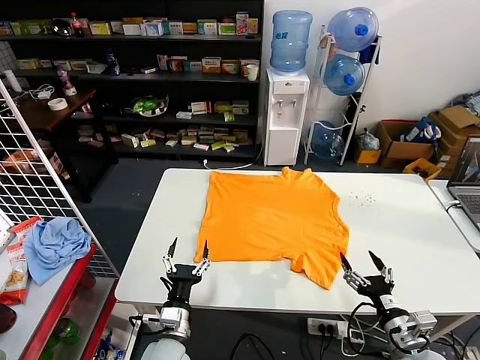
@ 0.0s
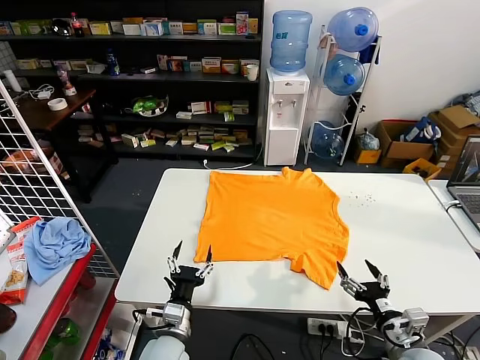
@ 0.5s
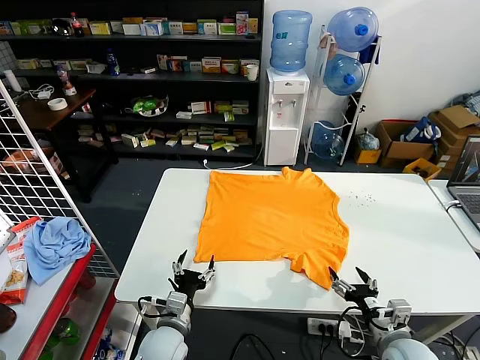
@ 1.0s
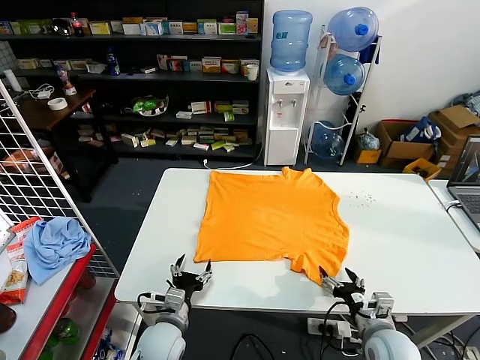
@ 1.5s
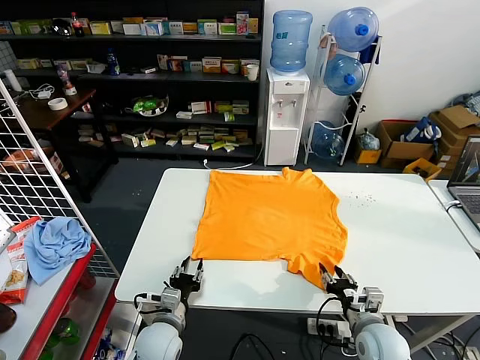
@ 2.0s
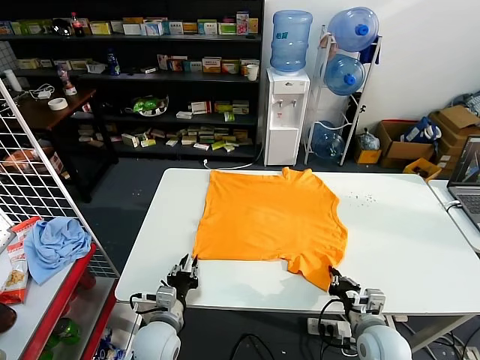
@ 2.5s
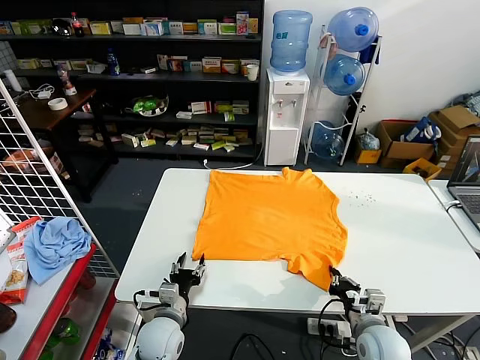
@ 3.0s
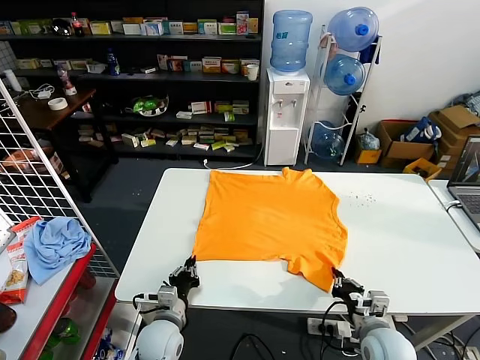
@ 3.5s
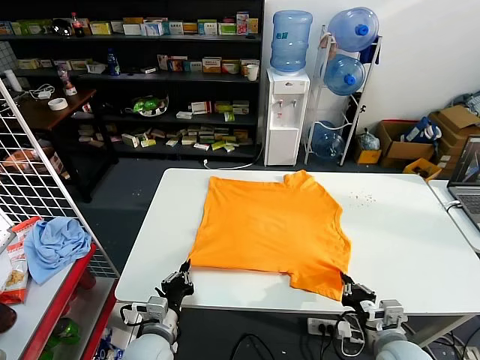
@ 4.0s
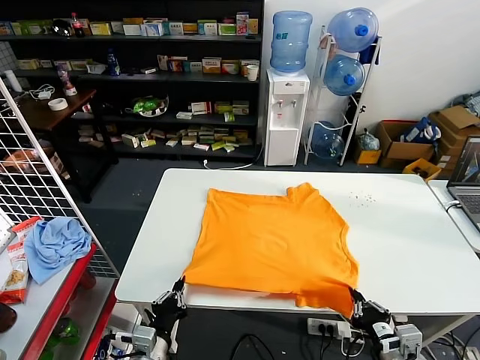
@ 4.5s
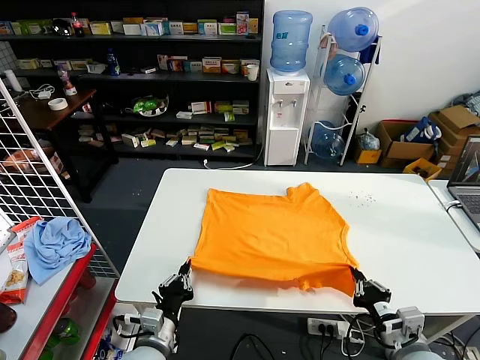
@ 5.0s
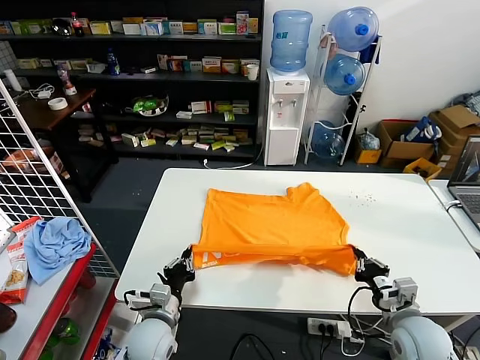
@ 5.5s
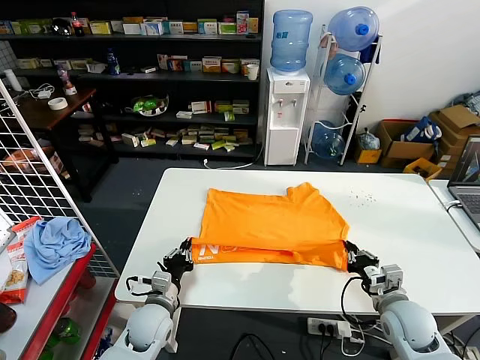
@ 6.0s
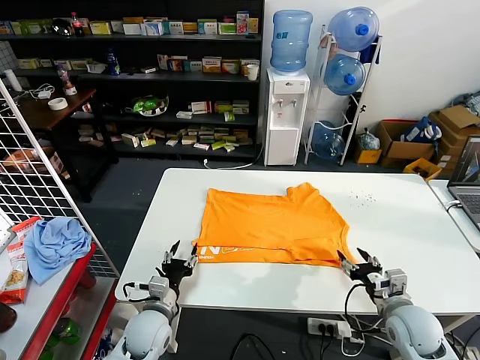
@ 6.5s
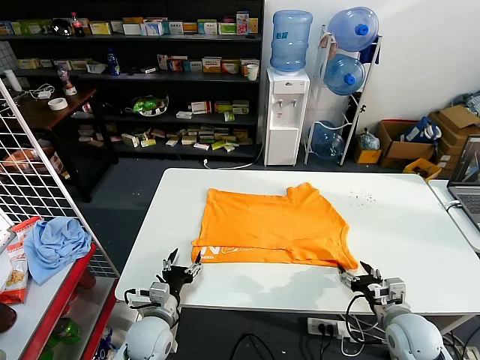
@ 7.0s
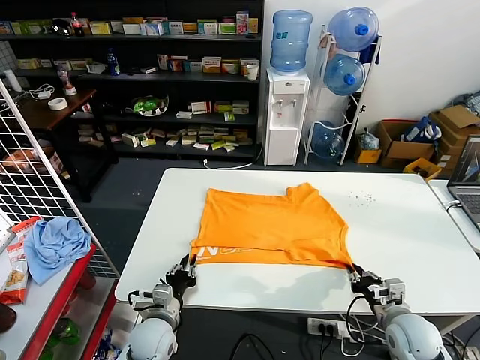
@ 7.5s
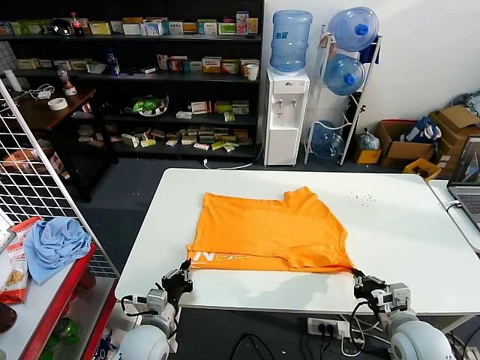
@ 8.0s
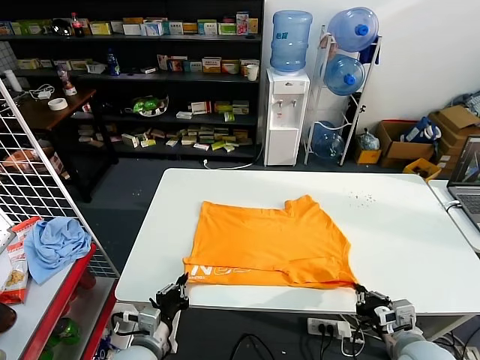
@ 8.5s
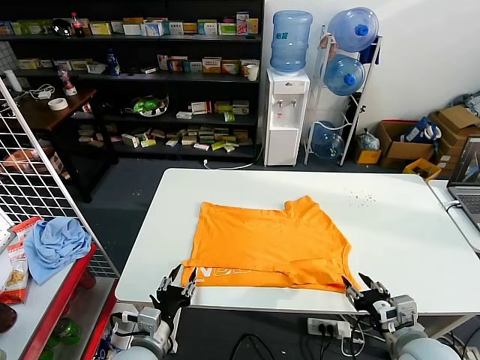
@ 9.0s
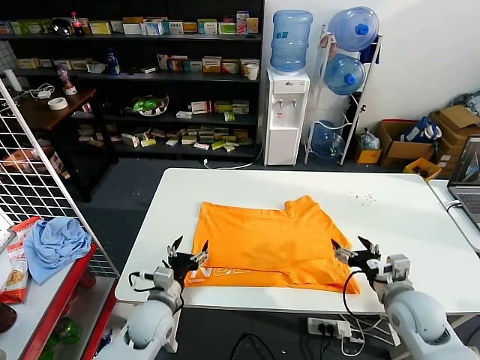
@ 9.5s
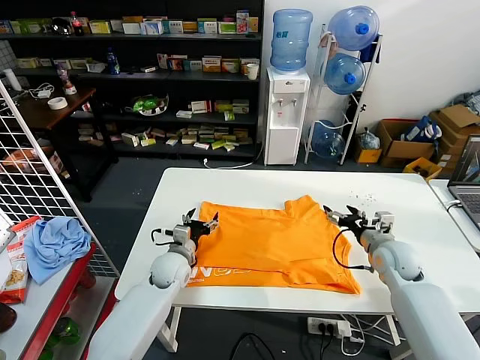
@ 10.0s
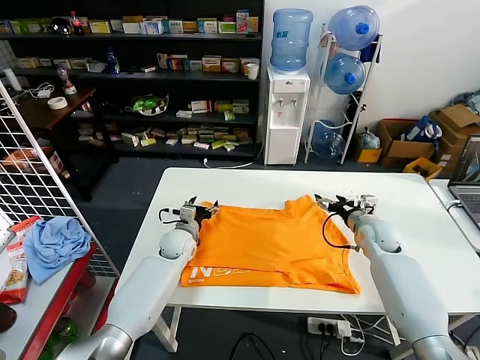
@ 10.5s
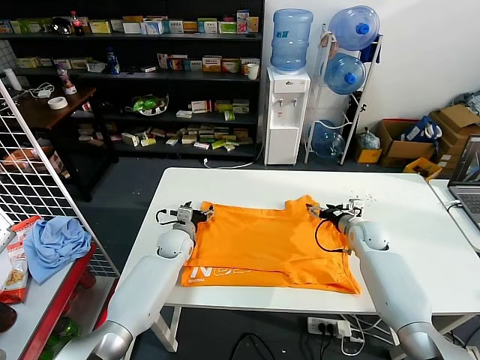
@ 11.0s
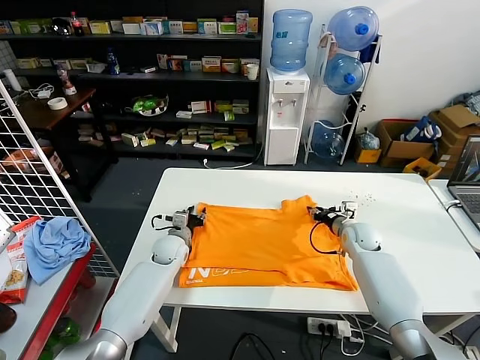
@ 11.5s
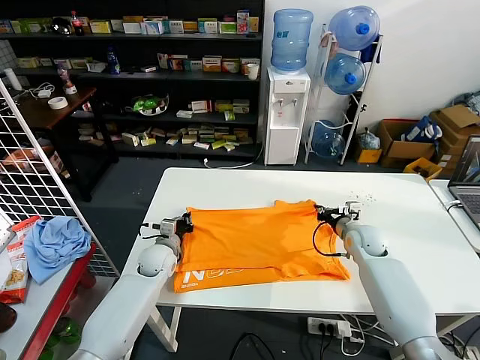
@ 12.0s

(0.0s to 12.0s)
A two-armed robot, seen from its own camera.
Task of the whole recording: fold and organize the clothes.
Step, 0.0s - 3.5s: use both grippers simultaneously to clamp the lower edge of the clothing fabric.
Step, 4.0s - 6.0s: use both grippers to drag the lower edge of the fabric forward and fold it over the upper edge.
Step, 6.5s - 9.0s: Drag the clothes downward with both gripper.
Step, 9.5s - 11.5s: use both grippers simultaneously to clamp the upper edge of the clothing fabric.
2.0s - 4.0s: The left gripper closes its fingers; the right gripper travels backward by approximately 5 cm, and closes up.
4.0s - 6.0s: Both grippers travel together forward, some 10 cm.
6.0s - 8.0s: The left gripper opens and closes again. The right gripper goes about 5 cm backward, and opens, then closes again.
8.0s - 10.0s: The two grippers go approximately 20 cm forward. The right gripper opens; the left gripper opens.
10.0s - 12.0s: The left gripper changes place by approximately 5 cm, and closes its fingers; the right gripper closes.

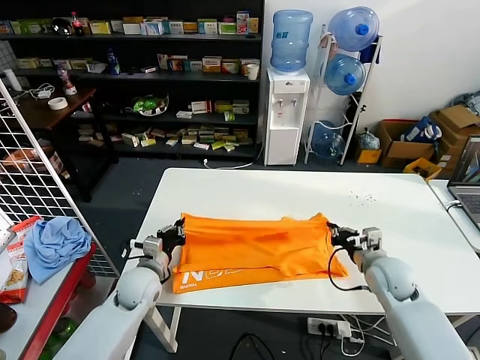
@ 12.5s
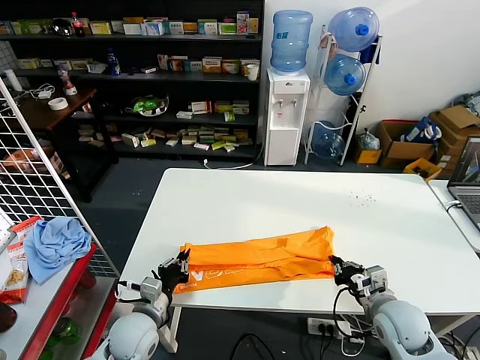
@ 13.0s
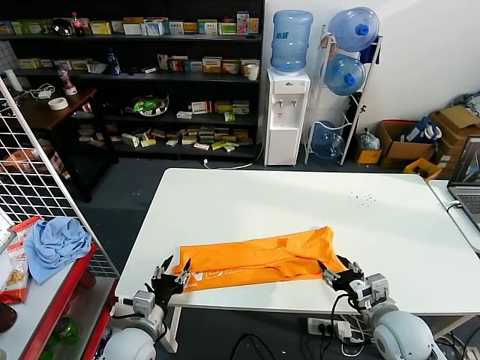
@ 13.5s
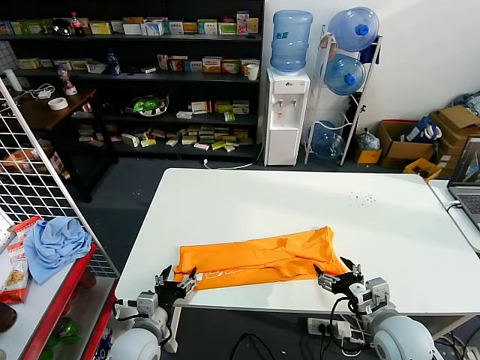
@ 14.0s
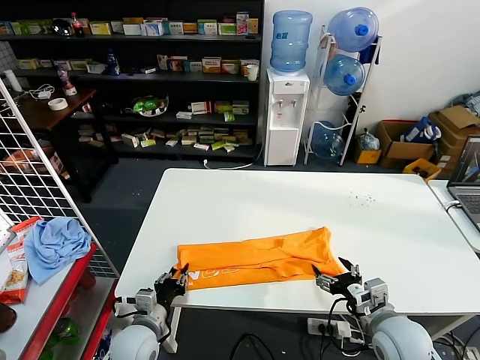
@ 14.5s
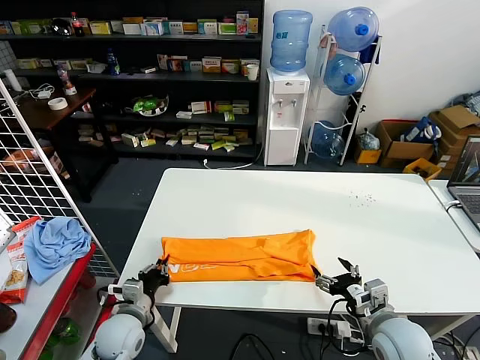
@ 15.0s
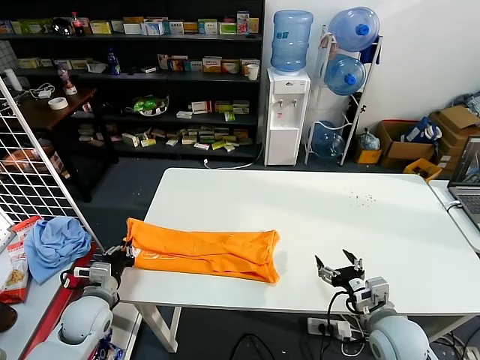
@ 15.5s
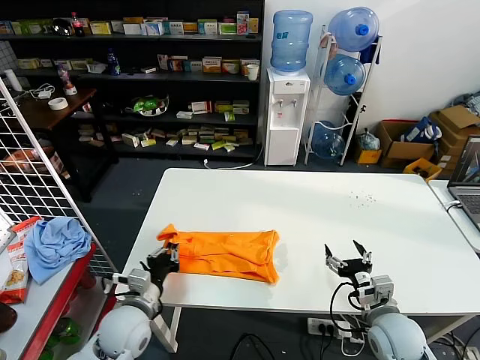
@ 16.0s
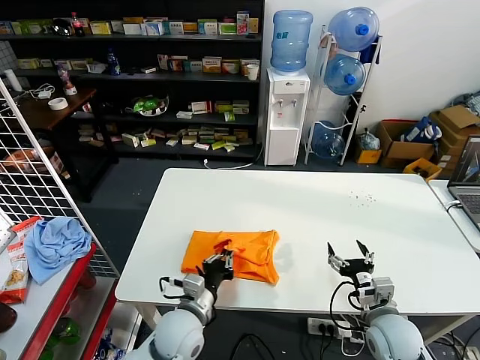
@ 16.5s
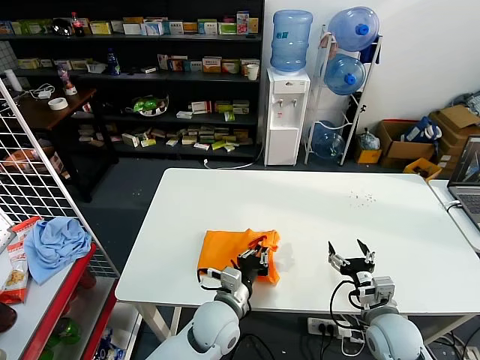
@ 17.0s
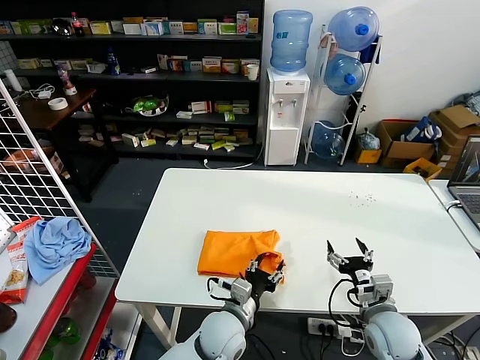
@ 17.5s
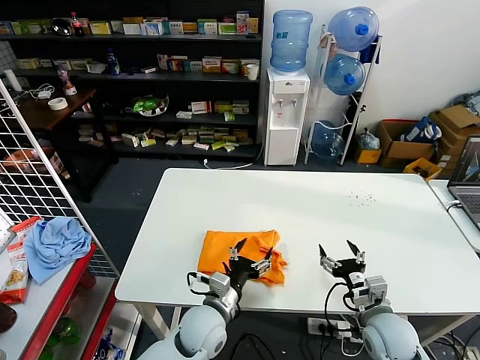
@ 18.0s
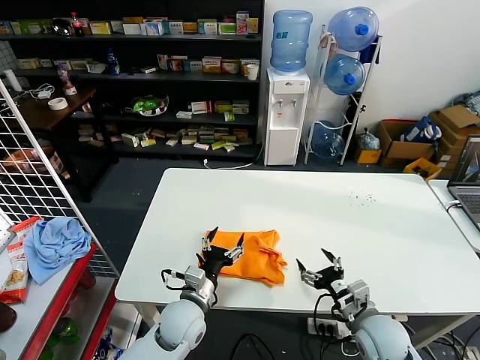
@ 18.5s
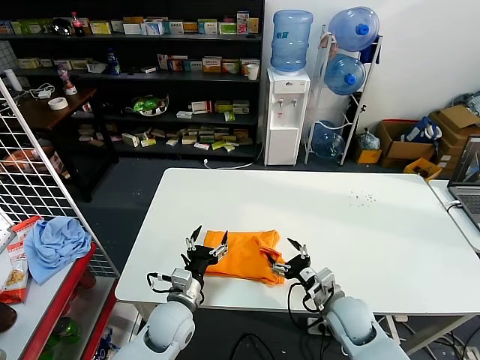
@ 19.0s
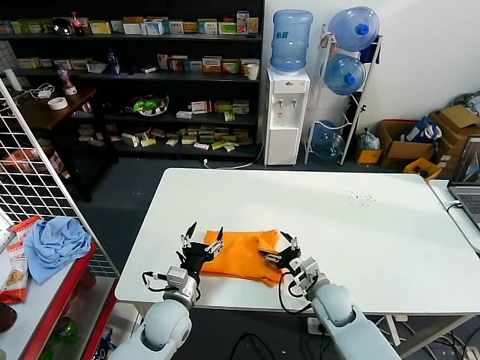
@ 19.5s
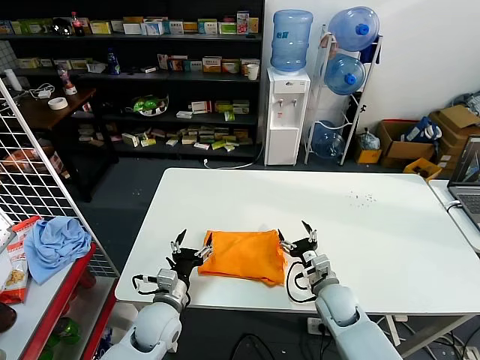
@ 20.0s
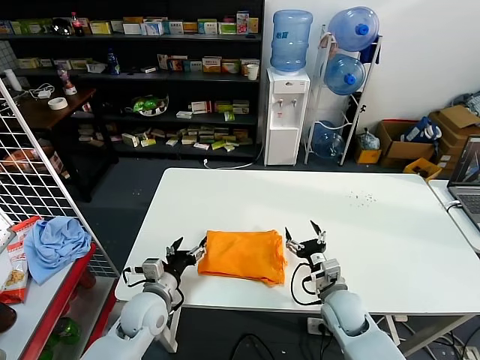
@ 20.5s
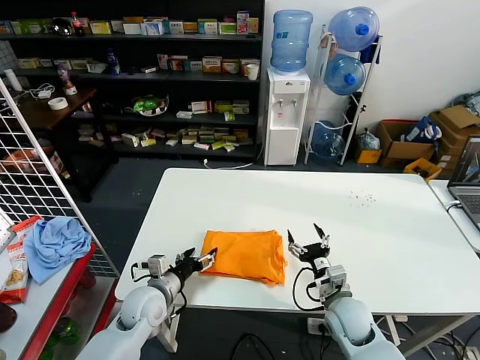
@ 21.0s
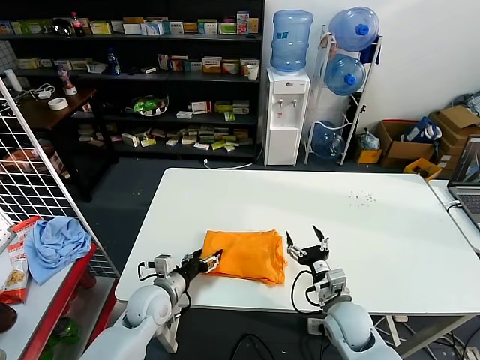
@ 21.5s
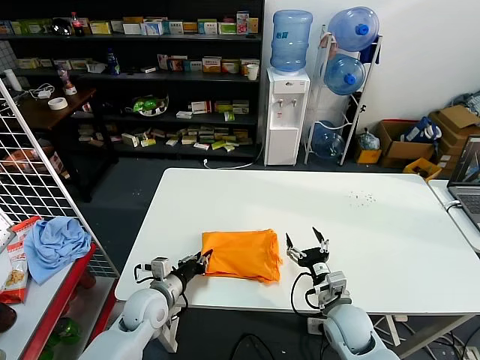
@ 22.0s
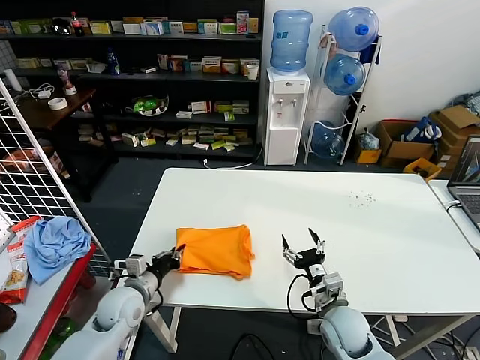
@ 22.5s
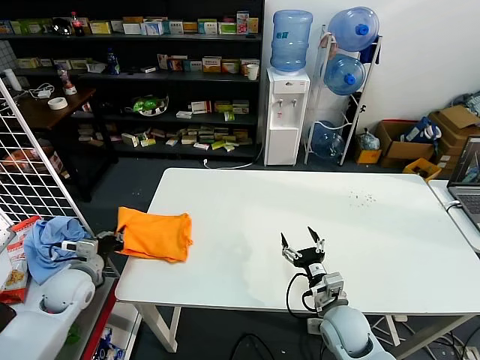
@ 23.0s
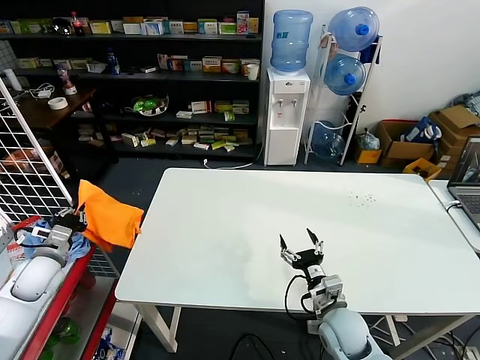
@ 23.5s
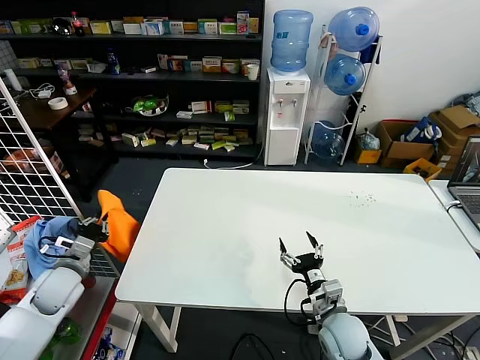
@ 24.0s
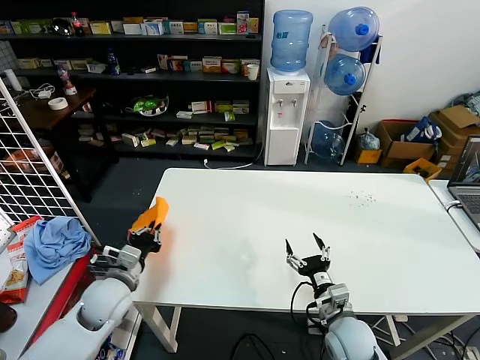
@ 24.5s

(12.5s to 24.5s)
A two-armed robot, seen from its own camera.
Task of the whole recording: fold and organize the clothes.
Step, 12.5s - 13.5s: use both grippers to drag the upper edge of the fabric backward and fold it over the lower edge.
Step, 14.0s - 14.5s: use the left gripper to clamp the left edge of the fabric.
Step, 15.0s - 18.0s: use the left gripper to drag the left edge of the fabric to the left and folds it over the right edge.
12.5s - 14.5s: Both grippers move backward, some 10 cm. The left gripper opens, then closes again, while the right gripper opens up.
14.5s - 16.5s: The left gripper heads to the right and upward, covering about 10 cm.
16.5s - 18.5s: The left gripper reaches roughly 10 cm to the right, then returns, and opens.
18.5s - 20.5s: The right gripper goes approximately 5 cm forward, while the left gripper goes some 10 cm to the left.
20.5s - 22.5s: The left gripper shifts roughly 5 cm to the left, and closes up.
22.5s - 24.5s: The left gripper reaches roughly 20 cm to the left, then returns.

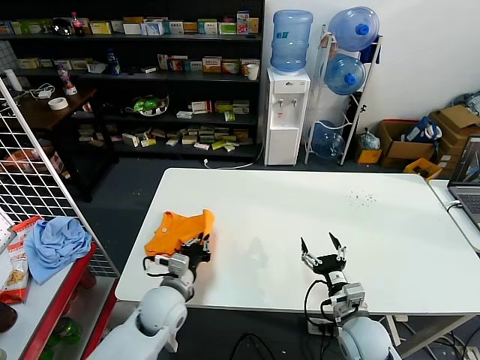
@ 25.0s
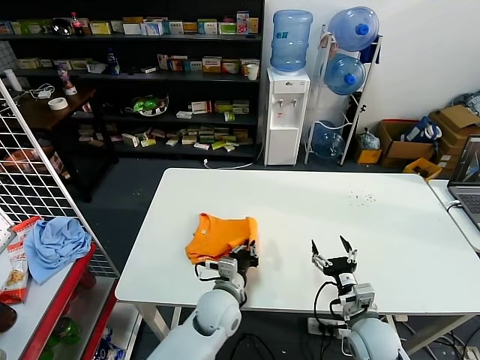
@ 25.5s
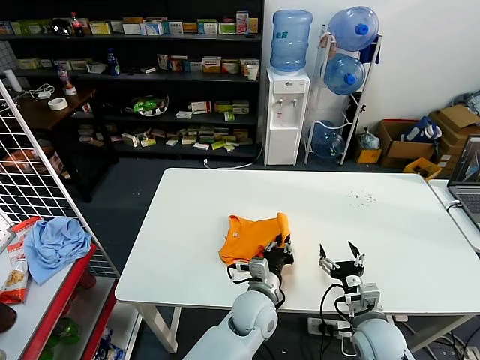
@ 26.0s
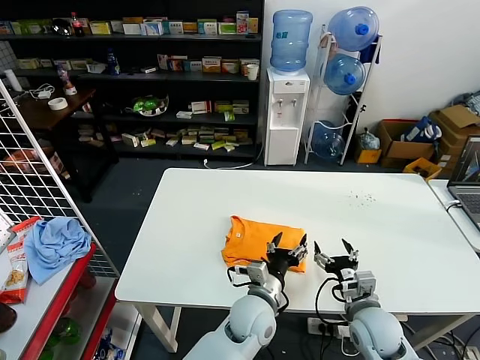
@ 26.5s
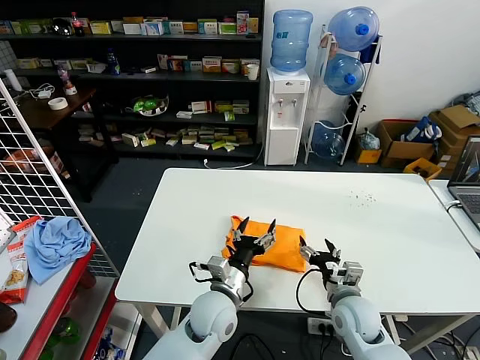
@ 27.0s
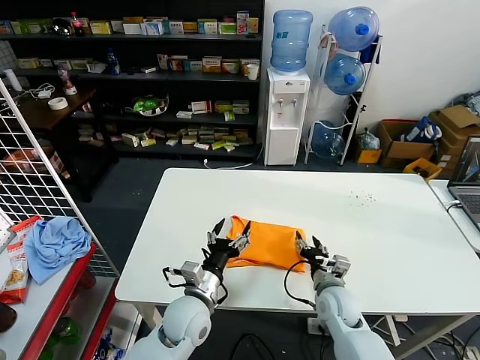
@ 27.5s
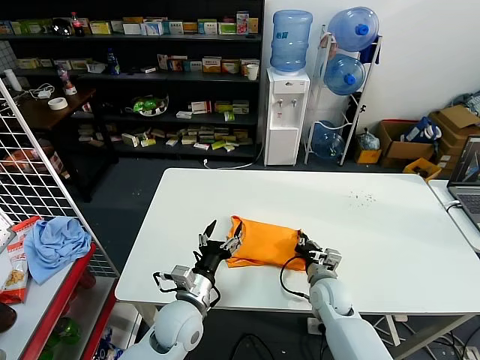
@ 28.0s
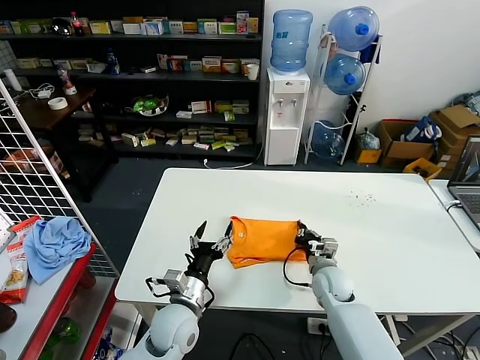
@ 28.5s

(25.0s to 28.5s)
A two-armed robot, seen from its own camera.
Task of the whole recording: fold and organize the clothes.
25.0s - 27.0s: The left gripper shifts approximately 15 cm to the right, and opens up.
27.0s - 28.5s: The right gripper heads forward, covering approximately 10 cm, and closes, while the left gripper shifts roughly 10 cm to the left.
